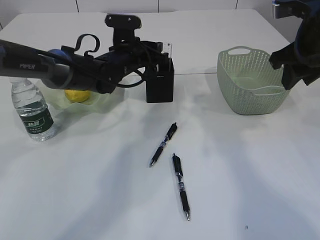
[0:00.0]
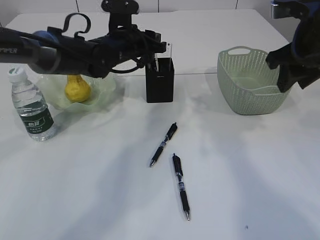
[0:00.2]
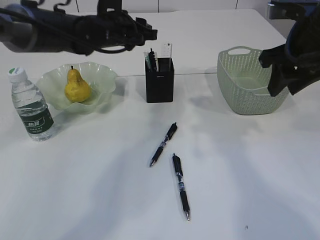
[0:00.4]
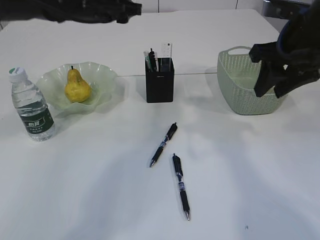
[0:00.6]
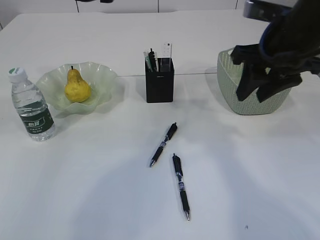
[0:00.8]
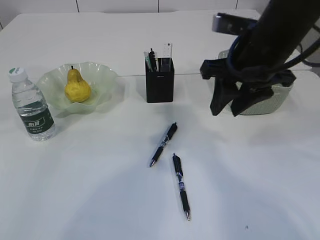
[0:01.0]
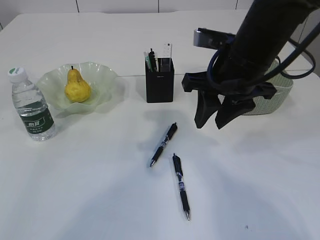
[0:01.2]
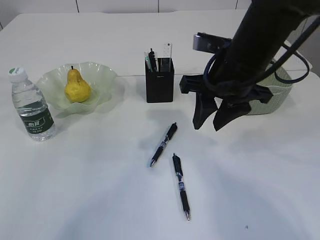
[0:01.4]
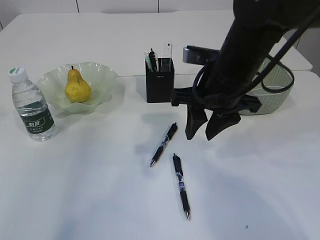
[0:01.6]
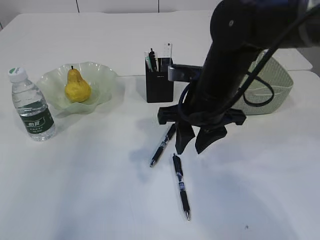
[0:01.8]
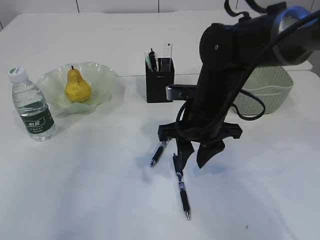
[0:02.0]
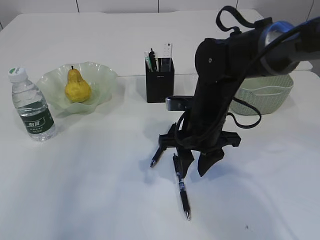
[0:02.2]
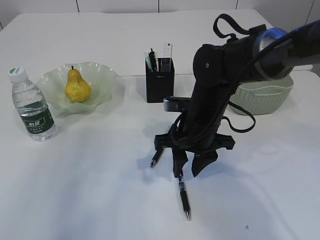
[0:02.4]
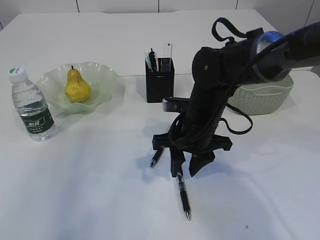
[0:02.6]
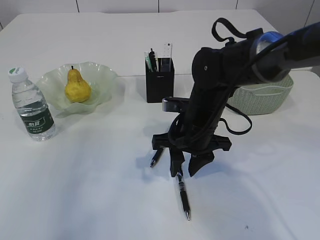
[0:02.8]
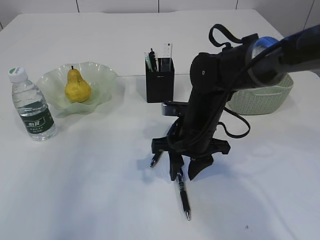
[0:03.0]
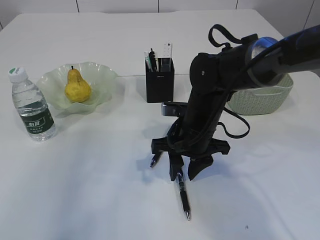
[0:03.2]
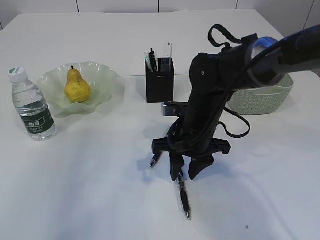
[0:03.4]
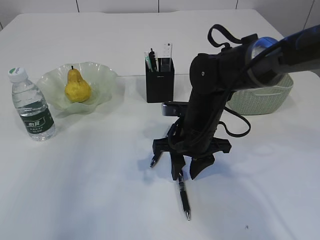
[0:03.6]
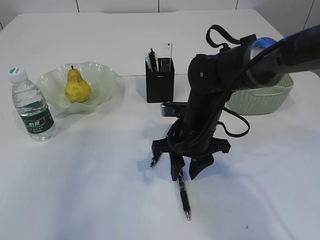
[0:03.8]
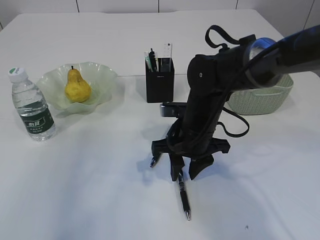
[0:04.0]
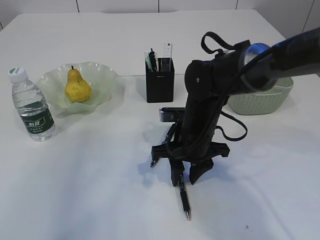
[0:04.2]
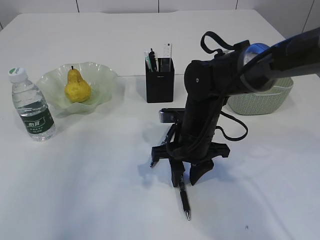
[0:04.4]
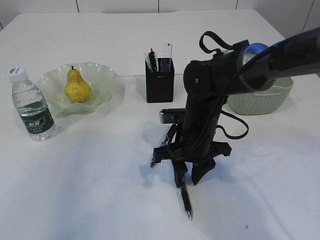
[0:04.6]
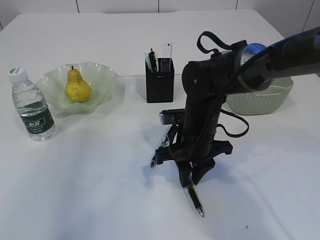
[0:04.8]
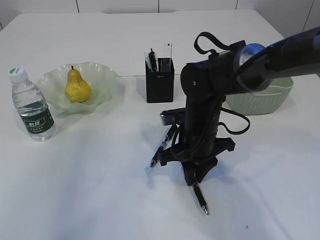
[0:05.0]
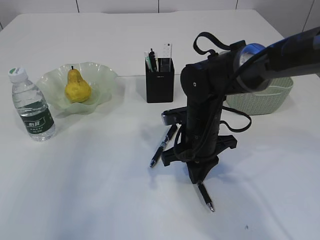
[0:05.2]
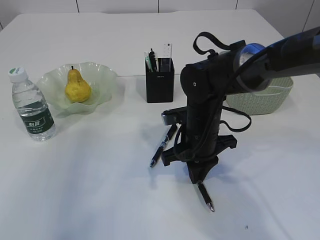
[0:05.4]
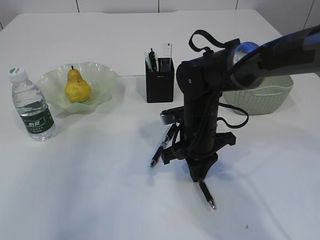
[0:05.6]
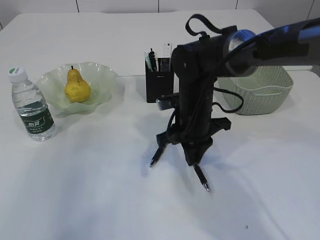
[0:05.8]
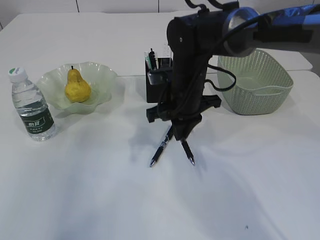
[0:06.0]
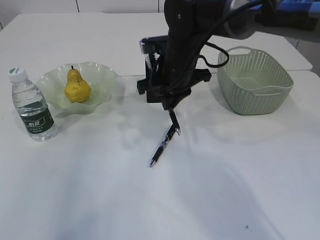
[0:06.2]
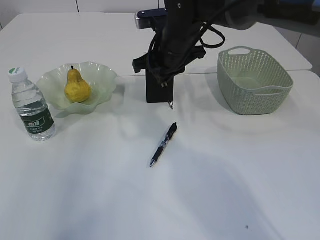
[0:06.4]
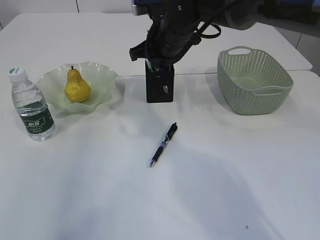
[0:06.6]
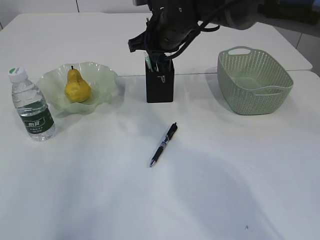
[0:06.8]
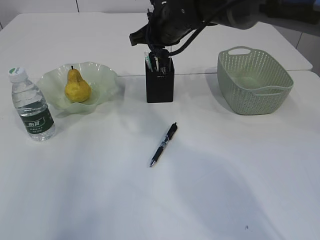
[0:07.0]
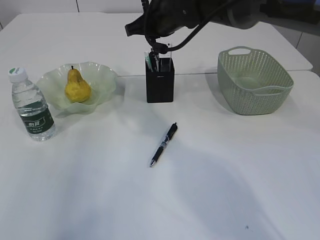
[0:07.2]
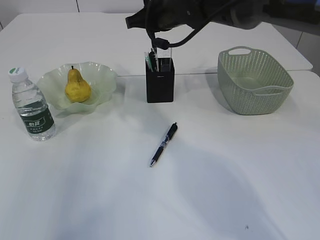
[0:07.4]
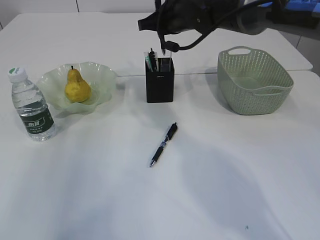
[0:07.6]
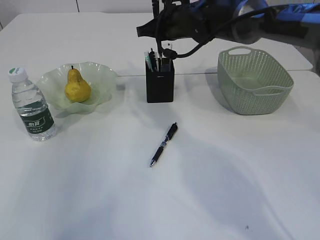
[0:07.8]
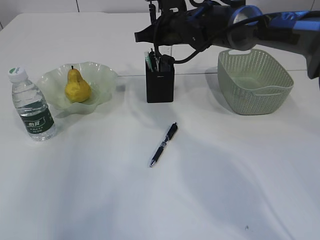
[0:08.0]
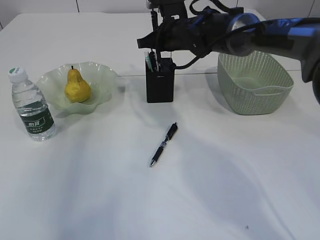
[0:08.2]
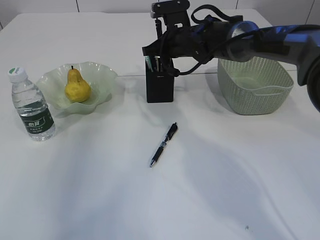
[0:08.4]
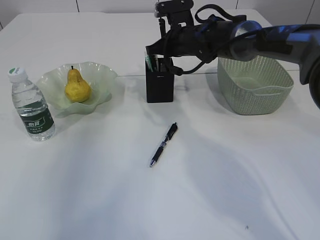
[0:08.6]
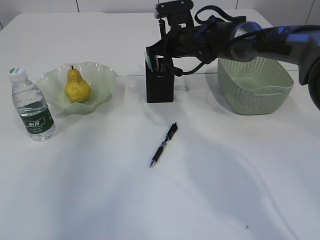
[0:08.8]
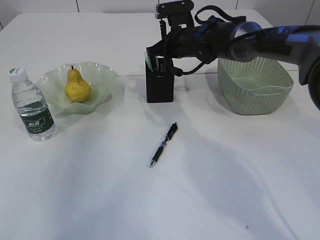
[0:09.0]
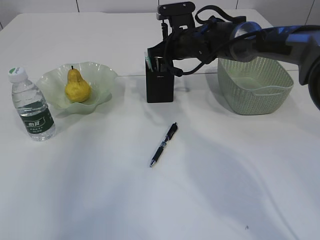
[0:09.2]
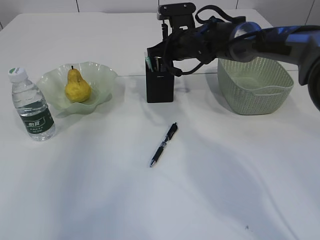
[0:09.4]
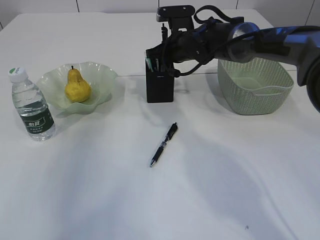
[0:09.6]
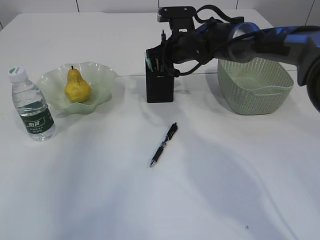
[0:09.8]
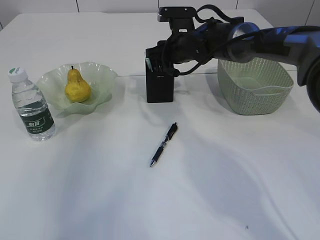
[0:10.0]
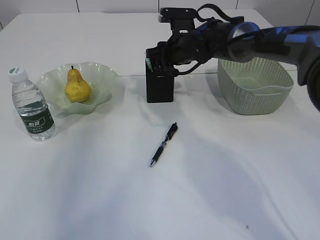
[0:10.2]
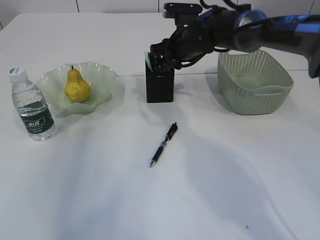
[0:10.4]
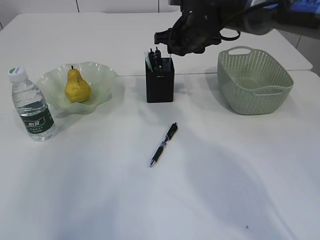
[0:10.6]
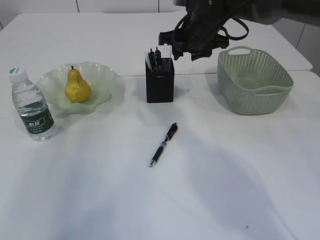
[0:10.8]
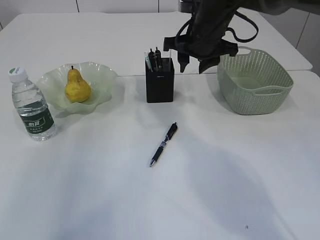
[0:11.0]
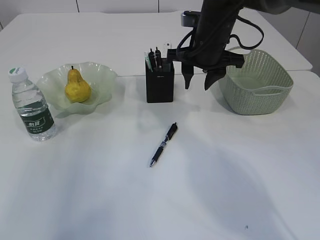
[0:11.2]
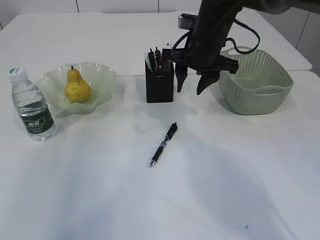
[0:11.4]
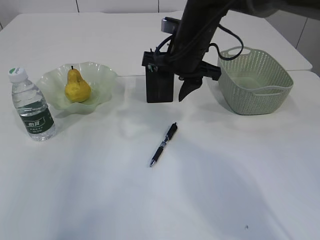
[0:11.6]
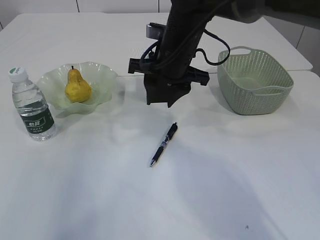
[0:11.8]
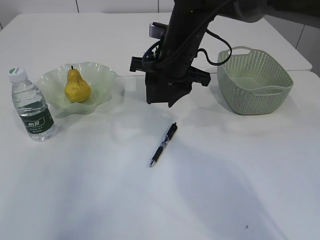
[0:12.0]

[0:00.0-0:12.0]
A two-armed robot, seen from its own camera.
Step, 0:00.6 to 0:05.8: Pick up the pen with right arm.
Step, 0:06.0 to 0:10.8: Place the pen into the pen holder.
0:00.0 to 0:01.6: The right gripper goes about 15 cm to the left. Meanwhile the left gripper moves upward, to the left and backward, approximately 35 cm.
0:01.6 to 0:03.0: The right gripper moves downward, about 10 cm.
0:03.0 to 0:04.4: Neither gripper changes place.
0:04.4 to 0:06.0: The right gripper is displaced upward and forward by roughly 5 cm, and closes up.
0:06.0 to 0:07.6: The right gripper moves forward and upward, approximately 15 cm.
0:07.6 to 0:09.0: The right gripper shifts about 5 cm downward.
0:09.0 to 0:10.4: The right gripper opens its fingers.
0:10.4 to 0:12.0: The right gripper heads backward, covering some 10 cm.

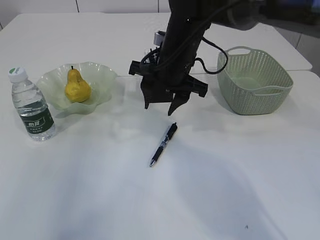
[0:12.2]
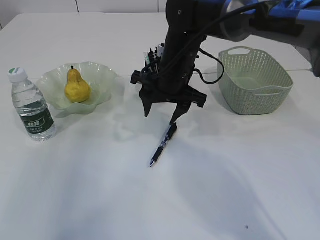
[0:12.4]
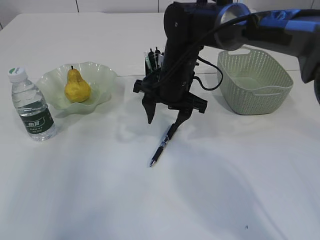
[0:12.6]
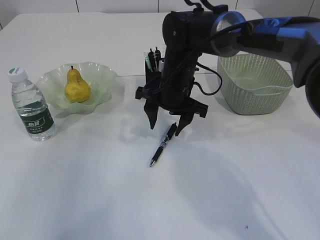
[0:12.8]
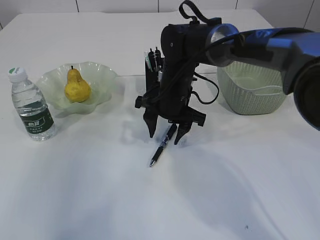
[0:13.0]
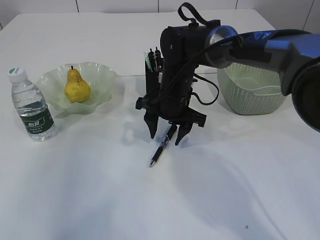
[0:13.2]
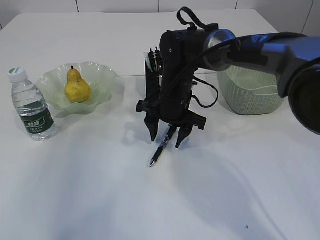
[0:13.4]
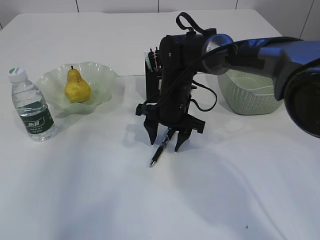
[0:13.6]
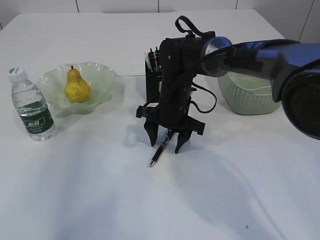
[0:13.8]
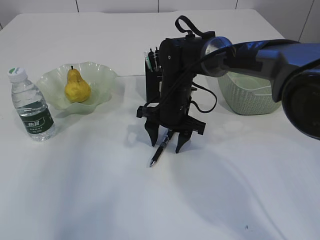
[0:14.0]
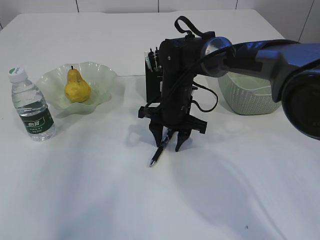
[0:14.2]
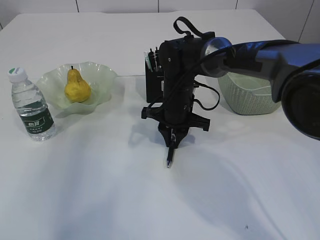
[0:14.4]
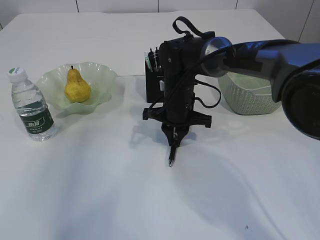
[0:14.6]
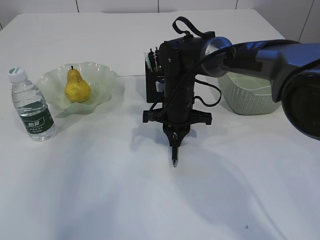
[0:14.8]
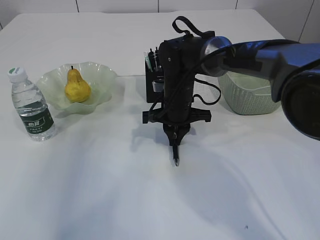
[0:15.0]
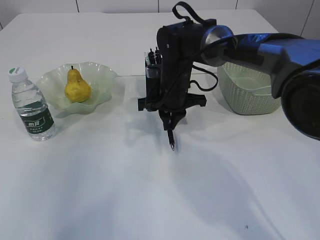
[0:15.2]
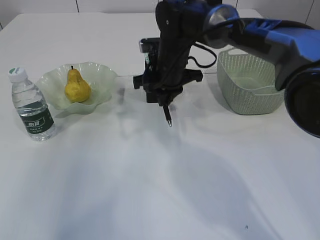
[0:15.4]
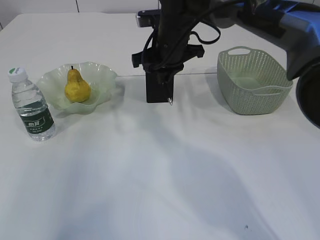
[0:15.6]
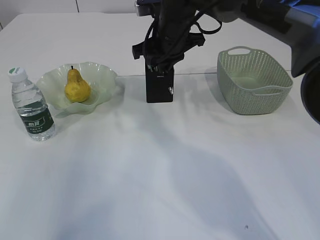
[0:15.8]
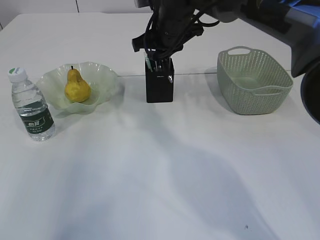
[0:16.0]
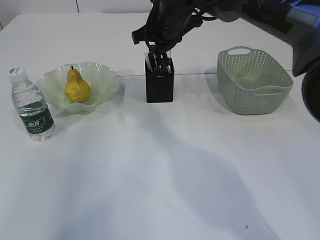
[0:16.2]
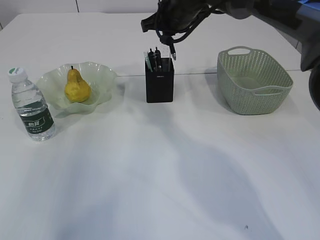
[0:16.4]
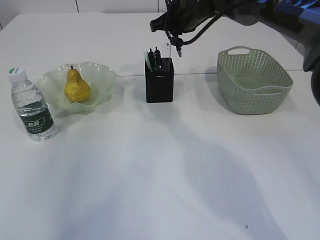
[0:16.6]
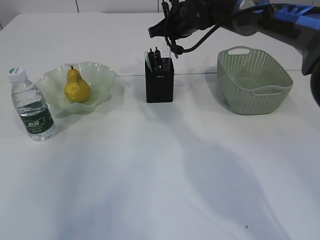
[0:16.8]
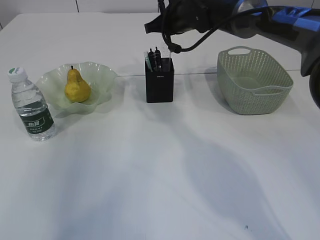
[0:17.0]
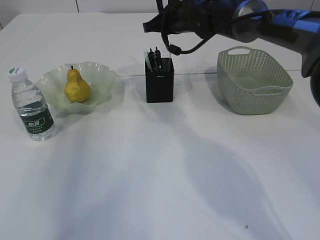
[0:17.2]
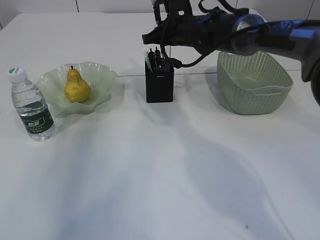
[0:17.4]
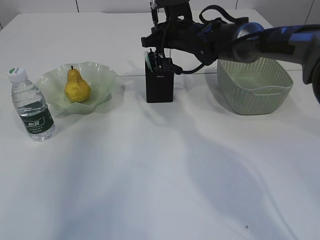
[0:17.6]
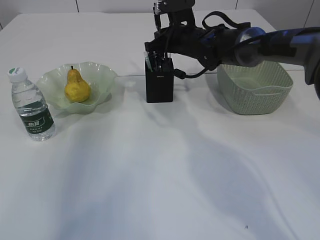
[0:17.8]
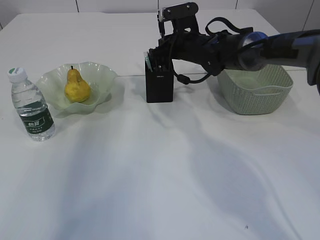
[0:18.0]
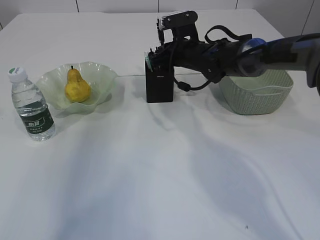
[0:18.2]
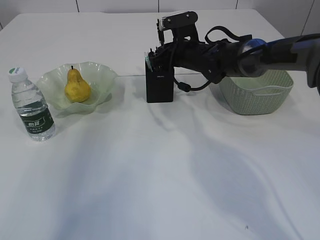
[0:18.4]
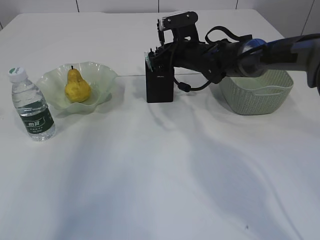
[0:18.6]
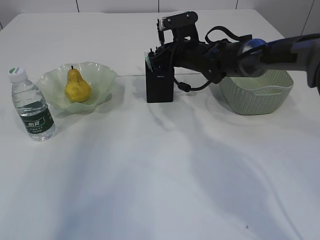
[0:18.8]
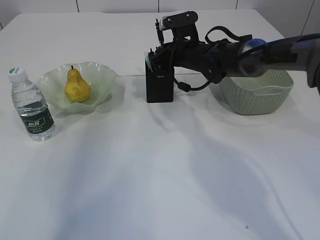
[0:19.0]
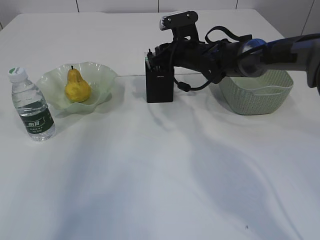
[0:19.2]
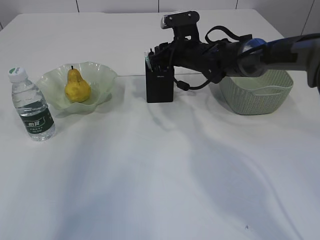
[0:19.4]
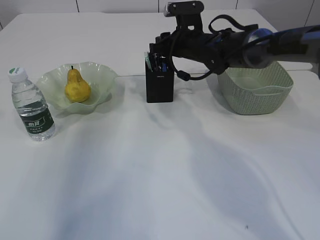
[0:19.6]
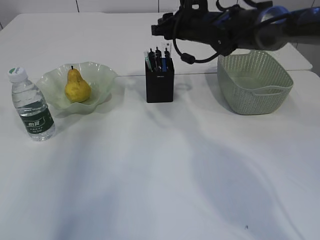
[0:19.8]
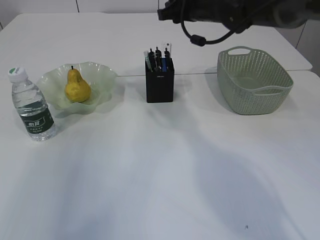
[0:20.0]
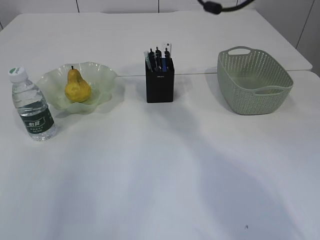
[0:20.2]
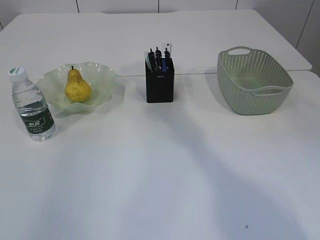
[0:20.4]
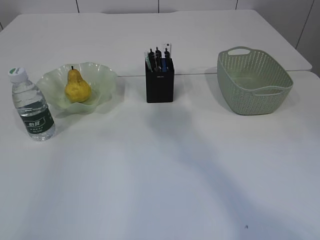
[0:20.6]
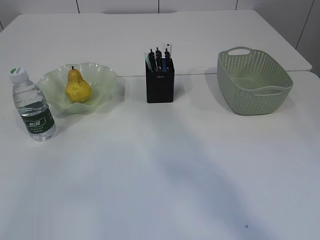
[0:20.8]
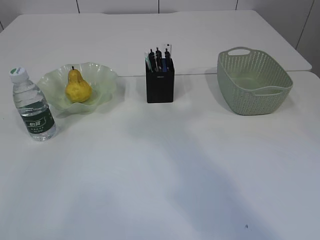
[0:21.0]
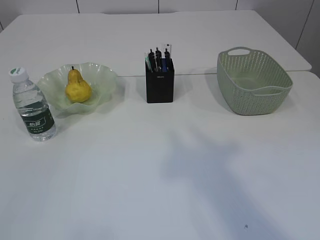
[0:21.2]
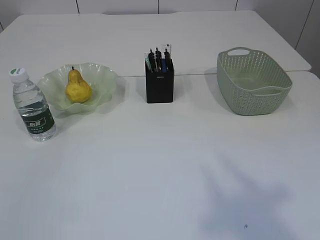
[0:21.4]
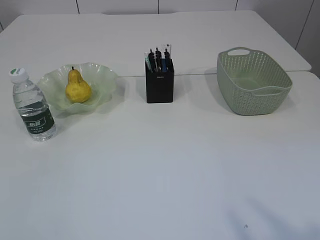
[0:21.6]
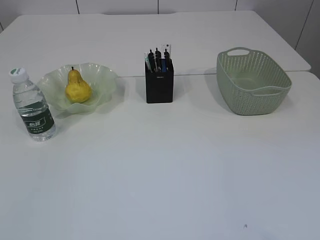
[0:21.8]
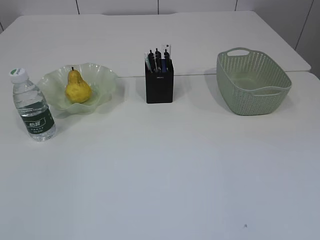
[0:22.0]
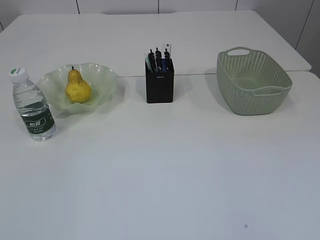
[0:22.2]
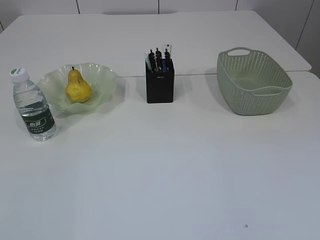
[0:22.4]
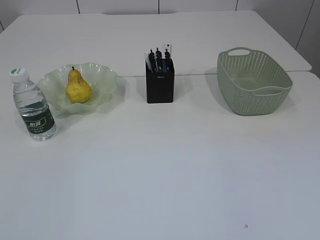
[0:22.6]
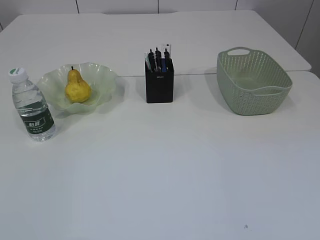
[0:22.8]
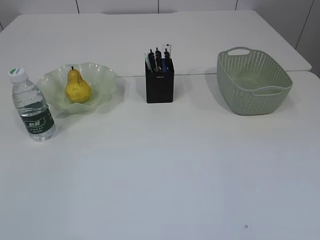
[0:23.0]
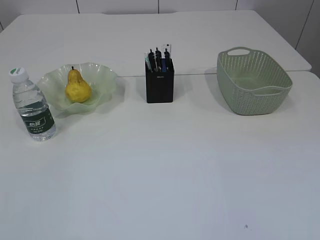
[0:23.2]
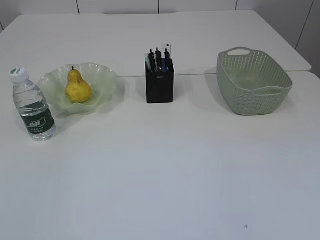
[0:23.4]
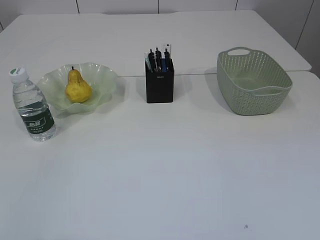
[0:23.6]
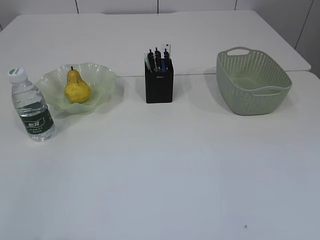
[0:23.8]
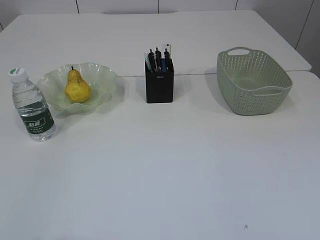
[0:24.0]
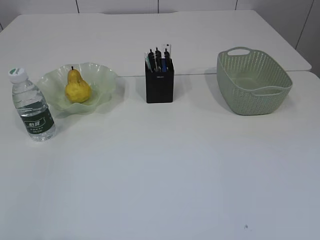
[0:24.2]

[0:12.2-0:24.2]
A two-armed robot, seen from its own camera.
Step, 0:12.2 to 0:15.4: Pick up the pen with right arm.
Step, 0:15.6 to 0:19.8: Place the pen into the pen holder.
0:12.2 to 0:13.8: The right gripper is displaced downward by some 10 cm.
0:13.8 to 0:15.2: The right gripper closes.
0:15.2 to 0:16.6: The right gripper shifts roughly 15 cm upward and forward.
0:16.6 to 0:18.2: The right gripper is displaced downward by some 10 cm.
0:18.2 to 0:19.8: The right gripper travels upward by about 5 cm, and opens.
0:19.8 to 0:21.2: The left gripper goes some 40 cm backward. The right gripper shifts about 40 cm backward and upward.
